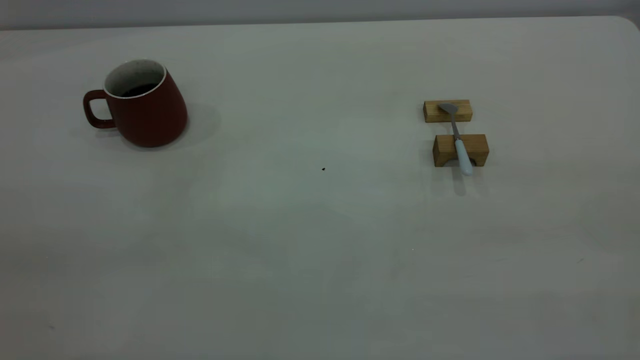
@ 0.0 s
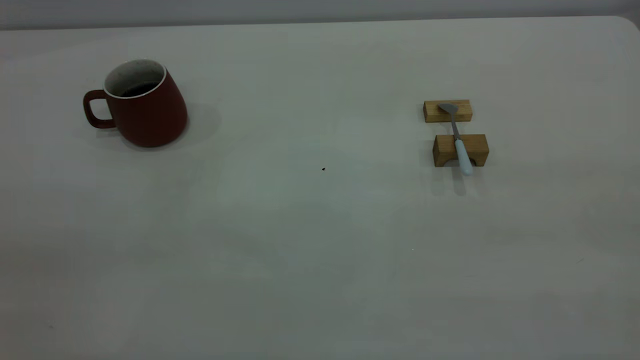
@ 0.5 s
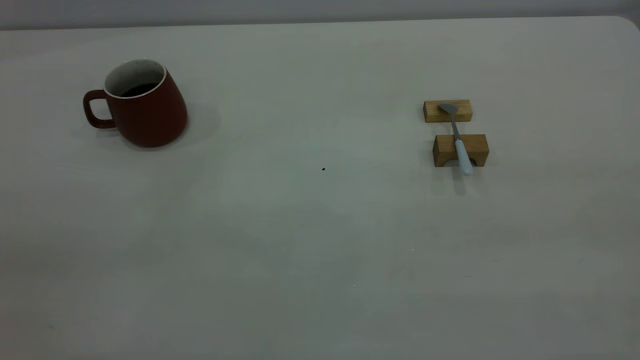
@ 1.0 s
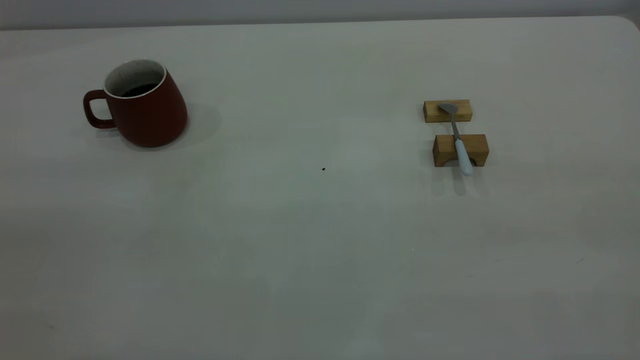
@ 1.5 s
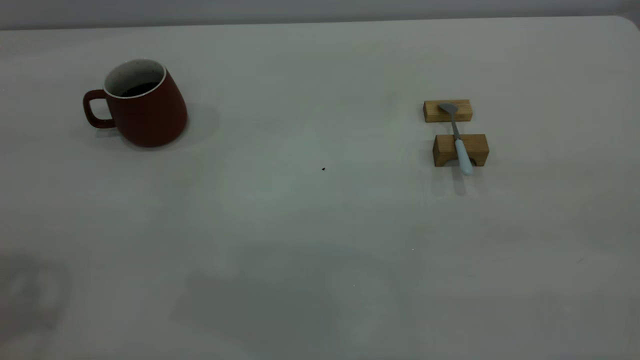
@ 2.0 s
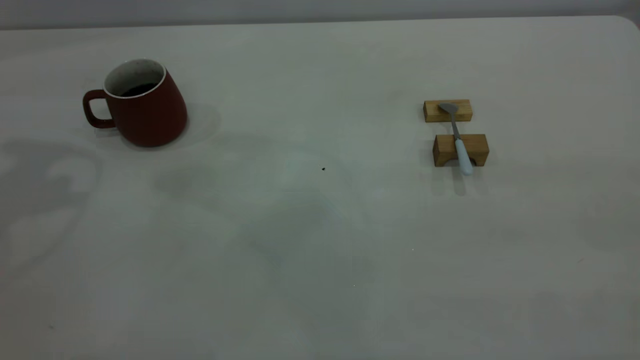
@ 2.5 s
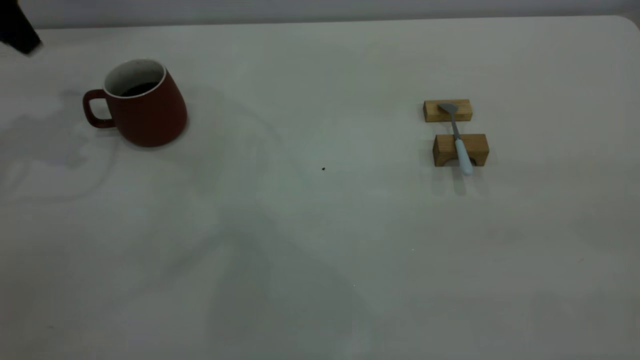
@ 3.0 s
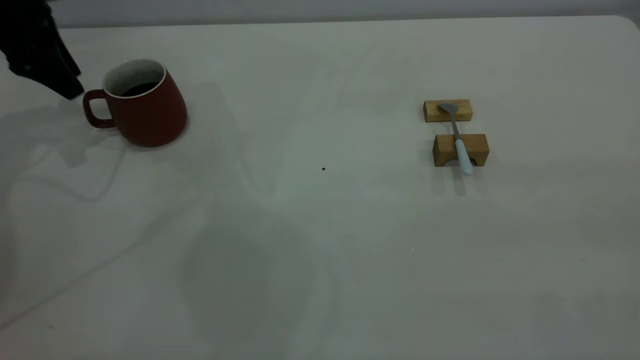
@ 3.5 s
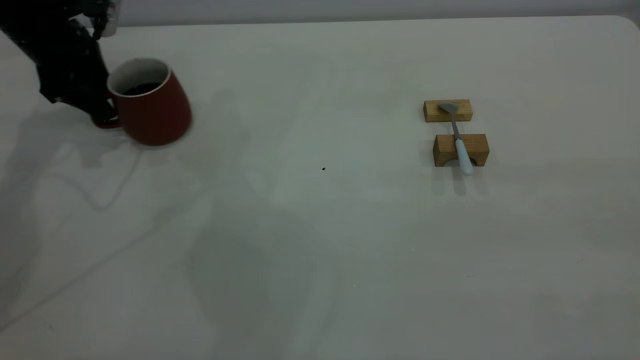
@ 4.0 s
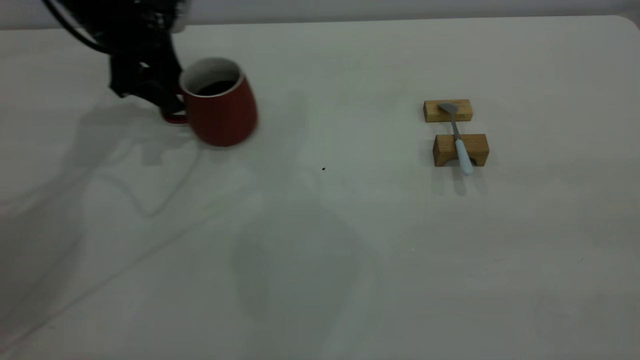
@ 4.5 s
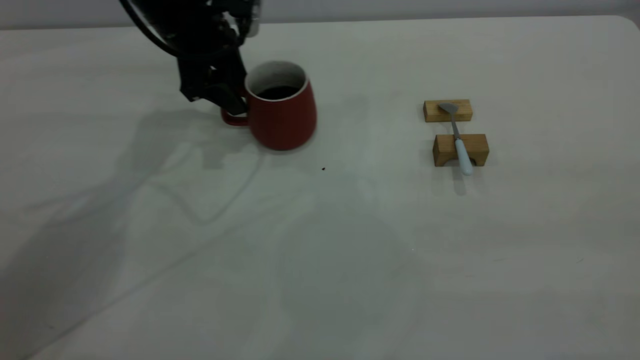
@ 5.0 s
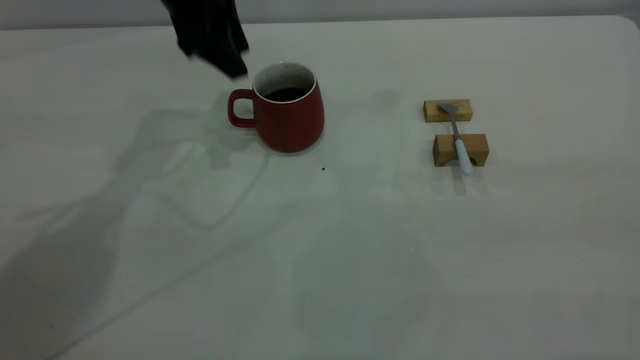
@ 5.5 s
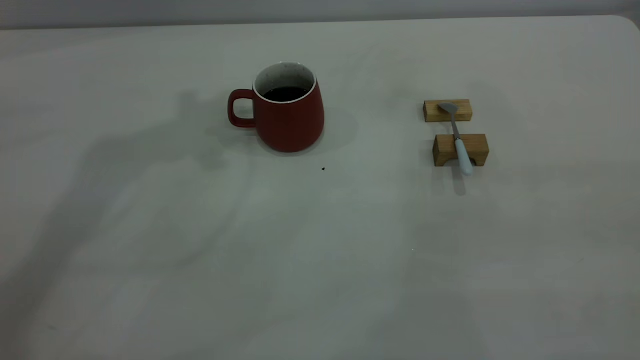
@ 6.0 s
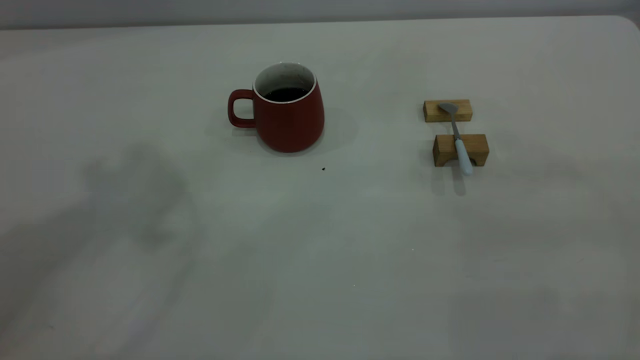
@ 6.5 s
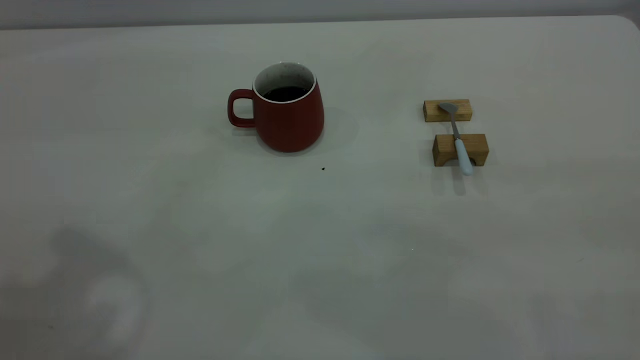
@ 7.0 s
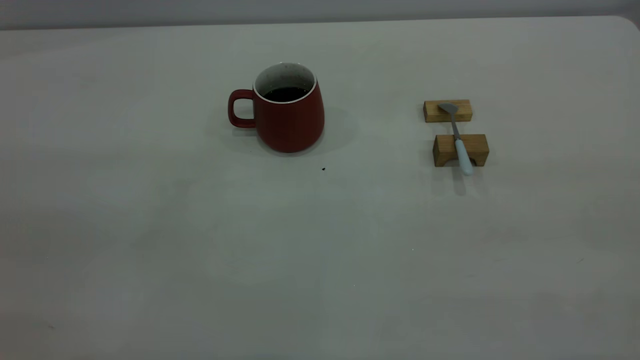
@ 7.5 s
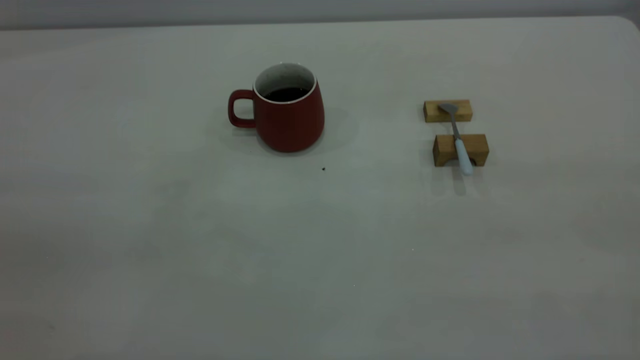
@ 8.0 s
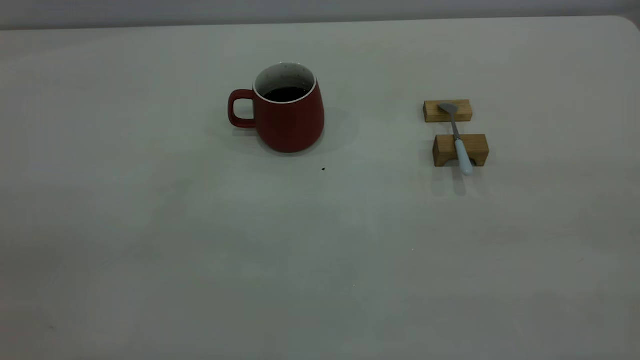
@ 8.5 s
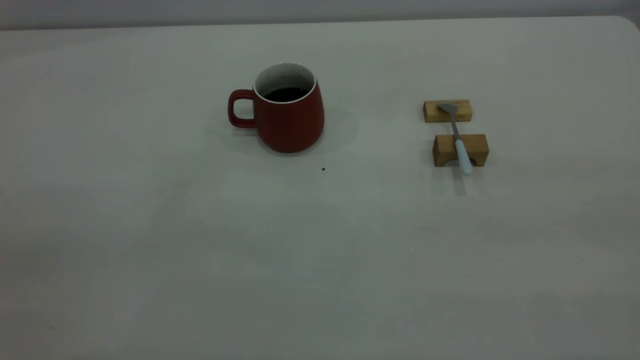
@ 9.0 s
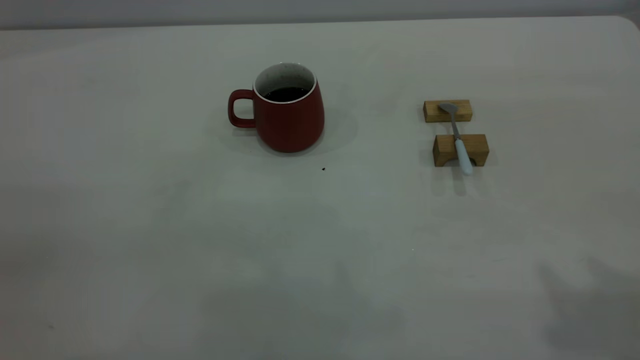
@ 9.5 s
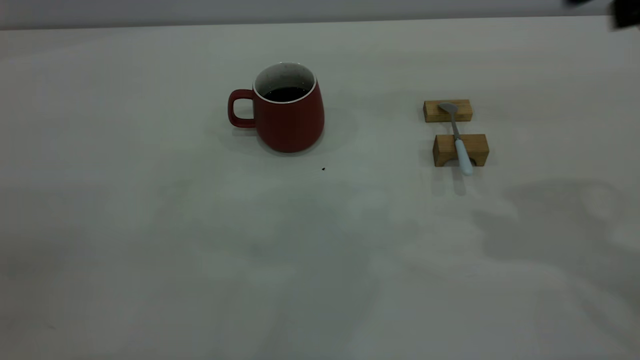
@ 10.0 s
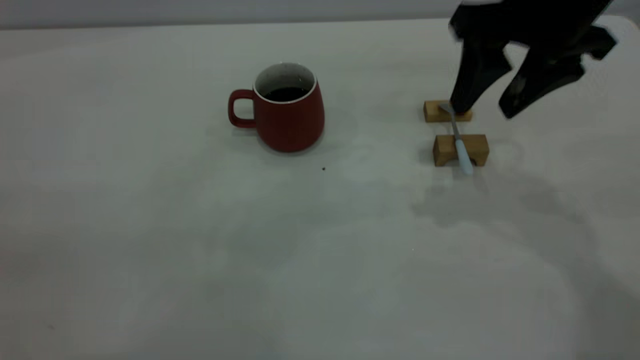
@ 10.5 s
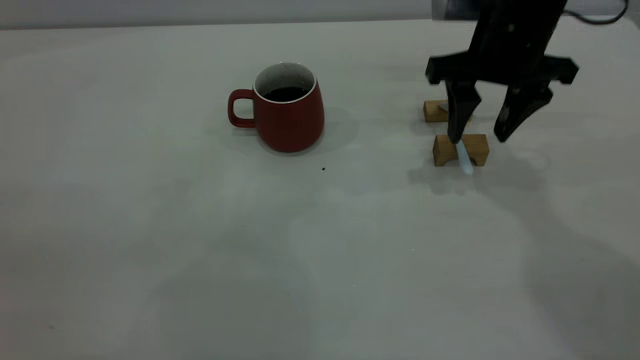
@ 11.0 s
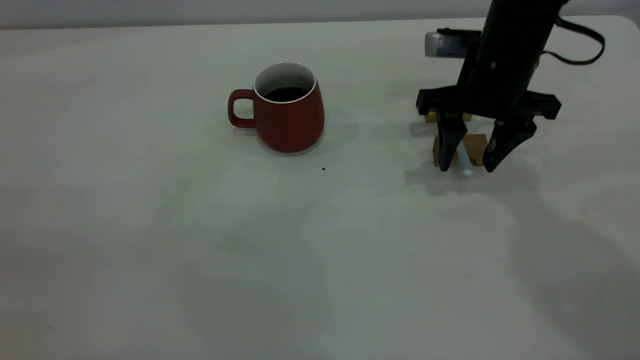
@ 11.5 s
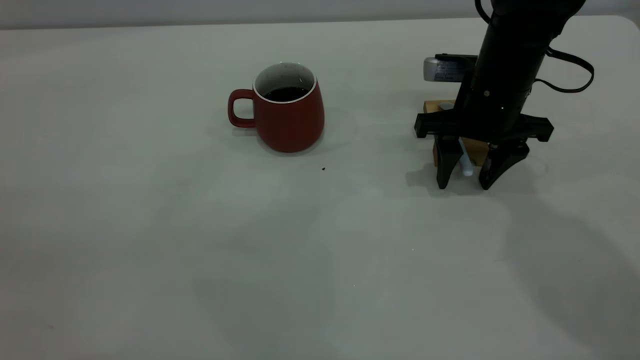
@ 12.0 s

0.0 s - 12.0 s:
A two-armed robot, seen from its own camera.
Step, 0.0 s - 5.0 s: Move the cup with coffee to the center of view.
2.0 s - 4.0 s: The left gripper travels forward and downward by approximately 35 cm.
4.0 s - 6.0 s: The left gripper is displaced upward and to the right by about 35 cm.
10.0 s - 12.0 s: The right gripper heads downward and forward, covering some 25 cm.

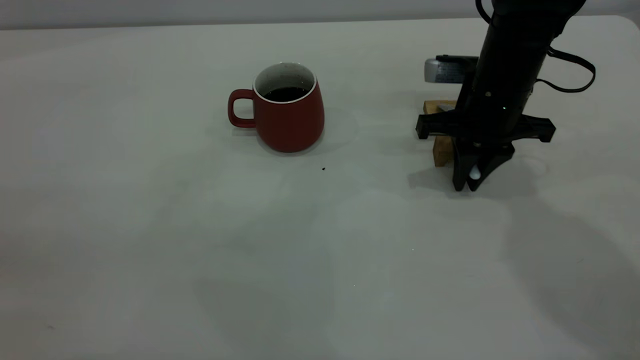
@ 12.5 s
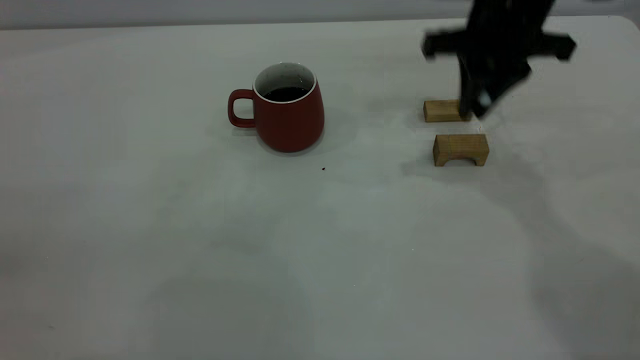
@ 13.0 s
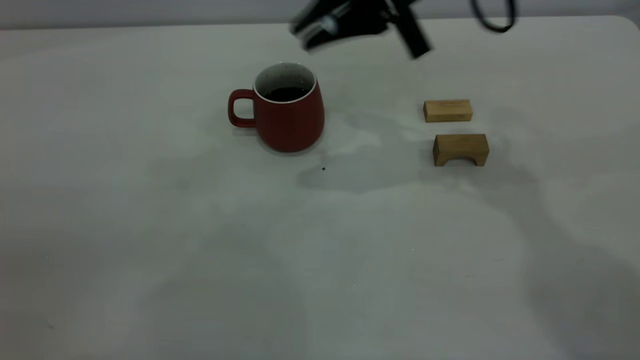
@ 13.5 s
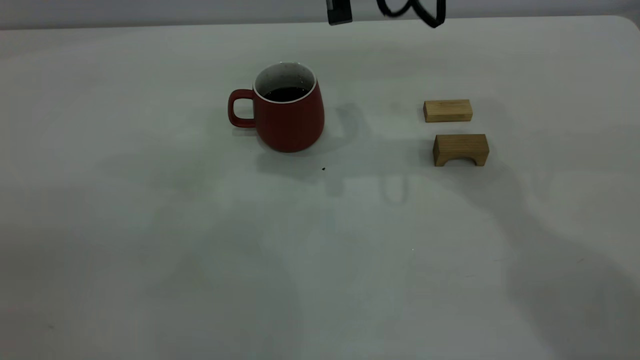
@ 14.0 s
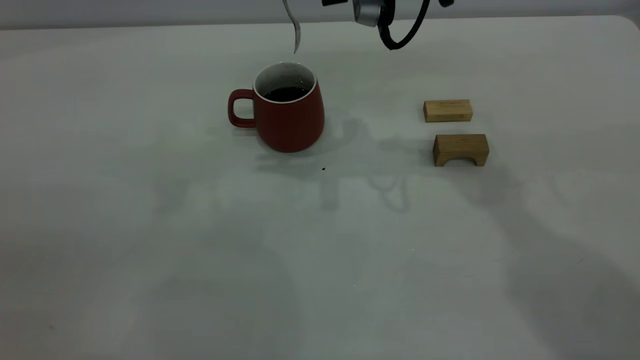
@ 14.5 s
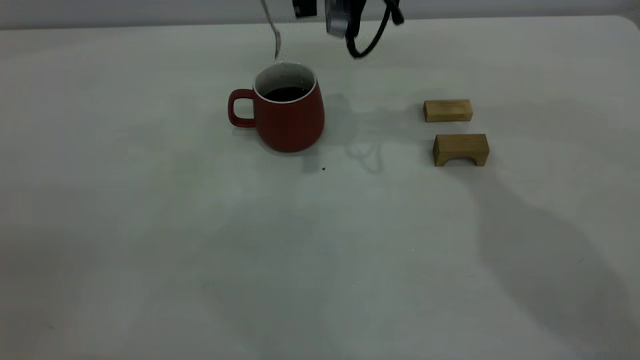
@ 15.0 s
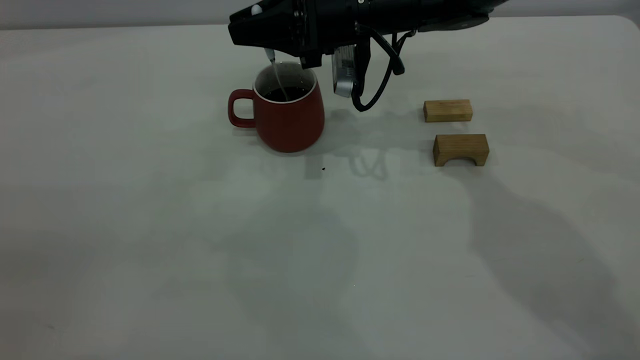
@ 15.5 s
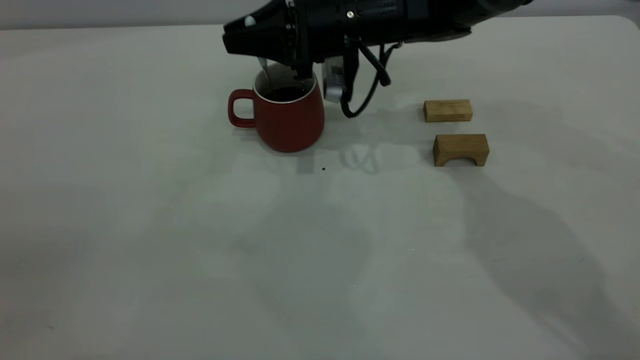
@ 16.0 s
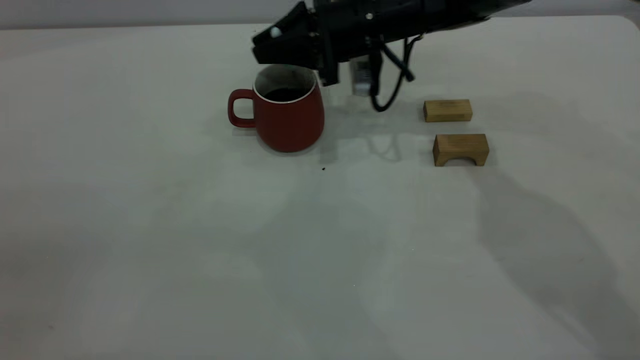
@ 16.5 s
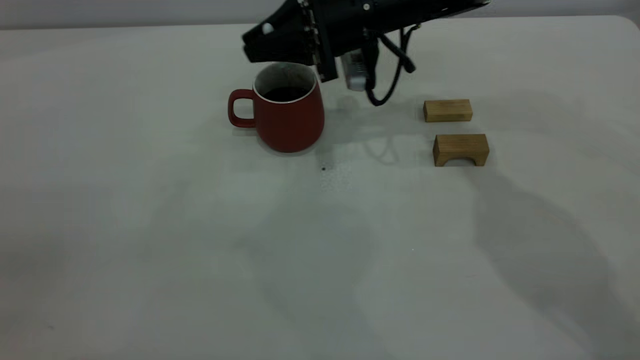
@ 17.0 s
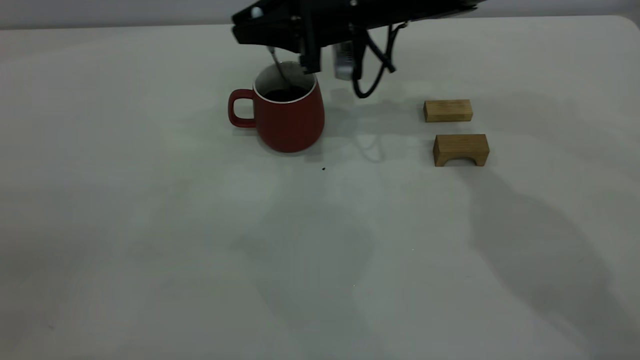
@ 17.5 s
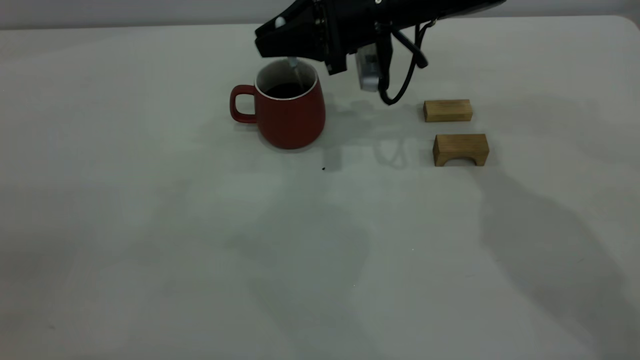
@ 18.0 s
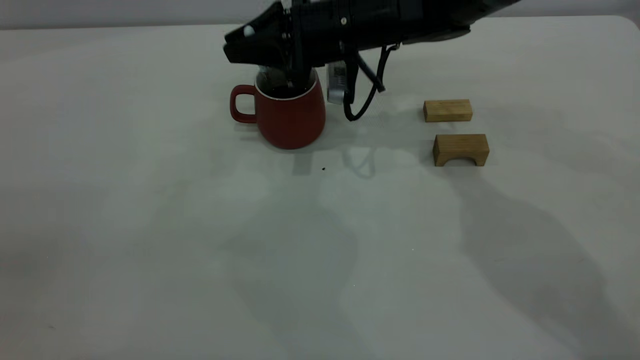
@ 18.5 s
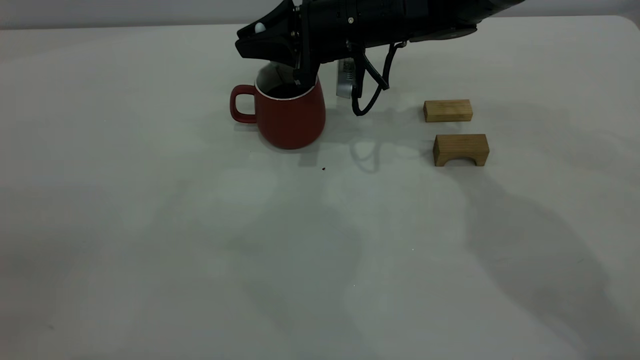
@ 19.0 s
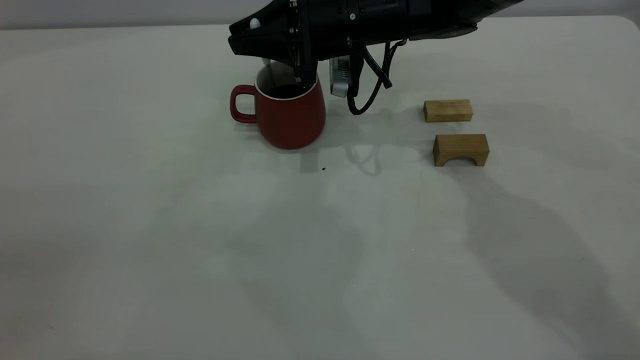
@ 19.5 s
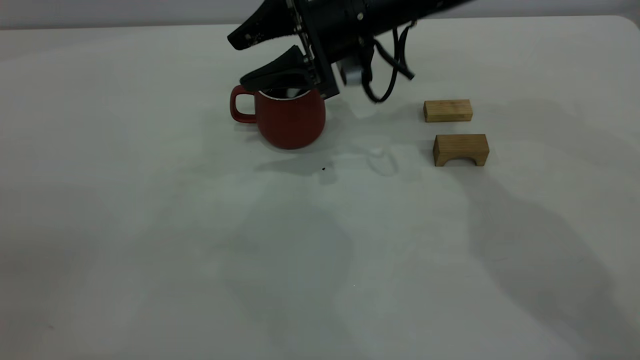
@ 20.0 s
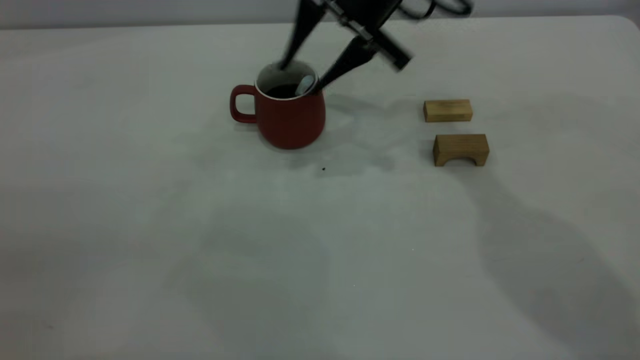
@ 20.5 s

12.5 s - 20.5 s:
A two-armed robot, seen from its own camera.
Step, 13.5 s - 20.0 s: Stir the coffee in the cup.
12.5 s - 14.5 s: The right gripper travels upward and to the left by roughly 20 cm.
14.5 s - 16.5 s: The right gripper shifts approximately 15 cm downward and forward.
16.5 s - 18.5 s: The grippers move only a little.
18.5 s - 20.5 s: The right gripper goes about 10 cm upward, and opens its fingers.
